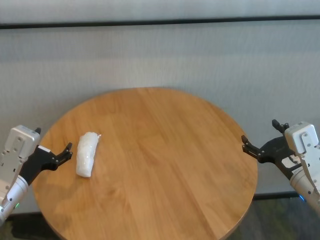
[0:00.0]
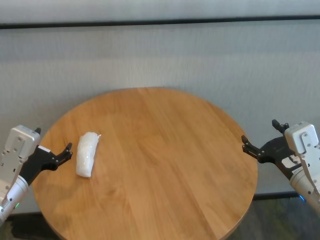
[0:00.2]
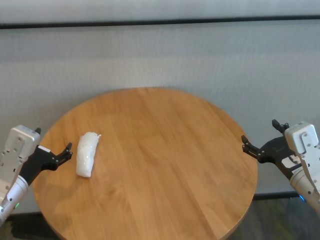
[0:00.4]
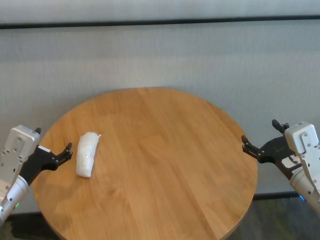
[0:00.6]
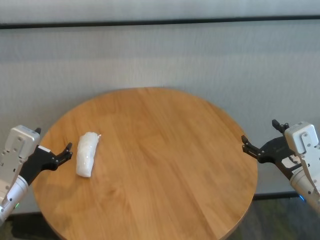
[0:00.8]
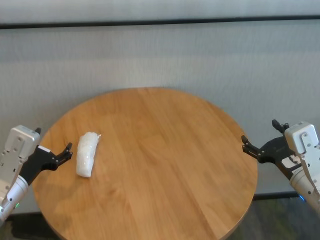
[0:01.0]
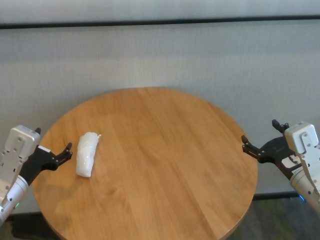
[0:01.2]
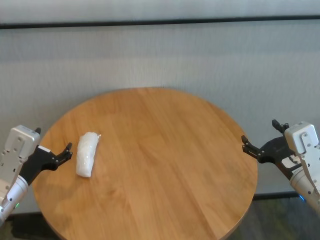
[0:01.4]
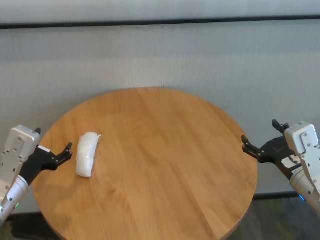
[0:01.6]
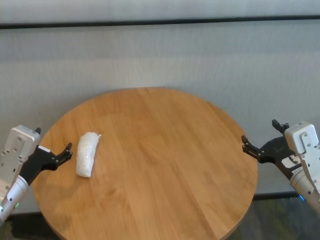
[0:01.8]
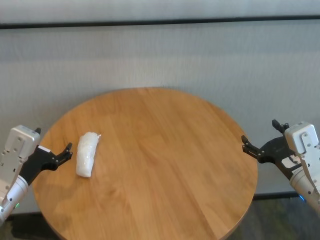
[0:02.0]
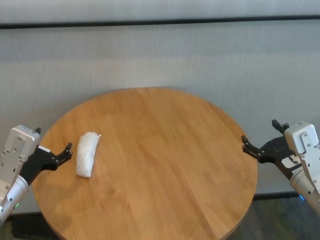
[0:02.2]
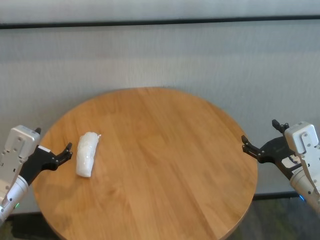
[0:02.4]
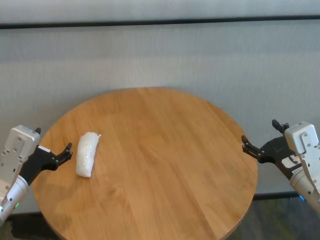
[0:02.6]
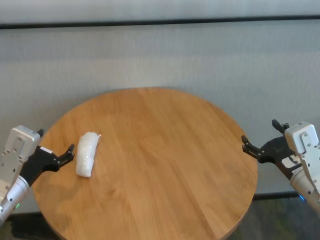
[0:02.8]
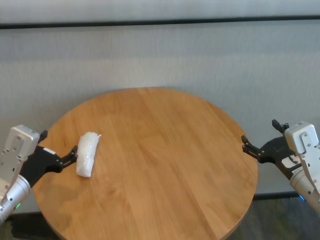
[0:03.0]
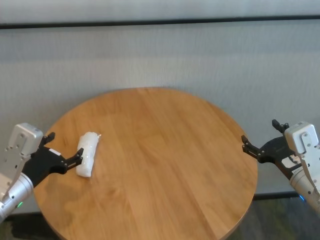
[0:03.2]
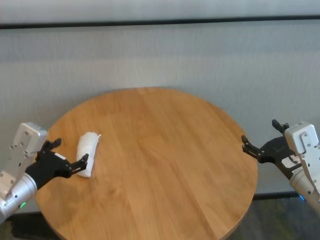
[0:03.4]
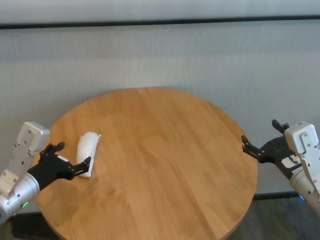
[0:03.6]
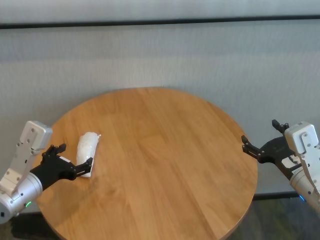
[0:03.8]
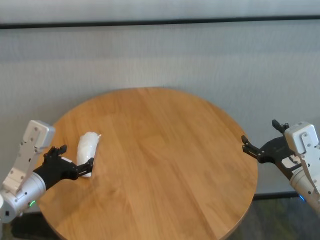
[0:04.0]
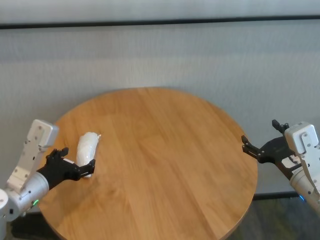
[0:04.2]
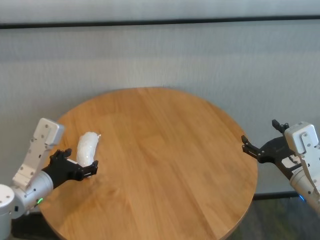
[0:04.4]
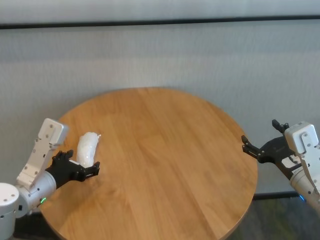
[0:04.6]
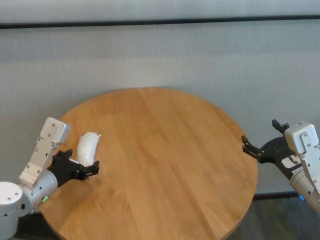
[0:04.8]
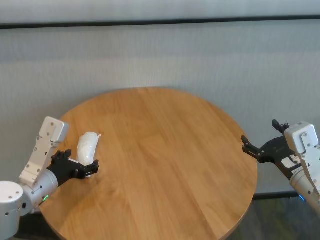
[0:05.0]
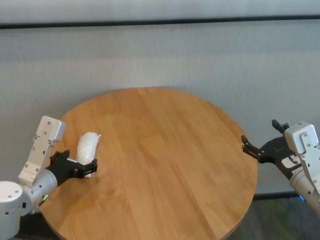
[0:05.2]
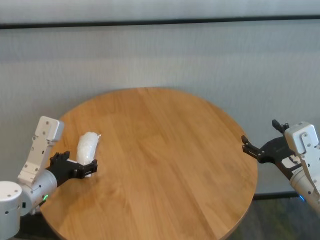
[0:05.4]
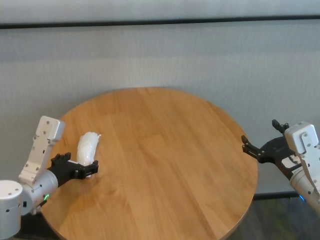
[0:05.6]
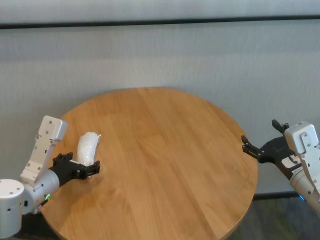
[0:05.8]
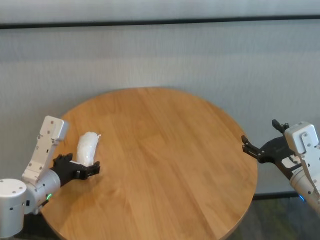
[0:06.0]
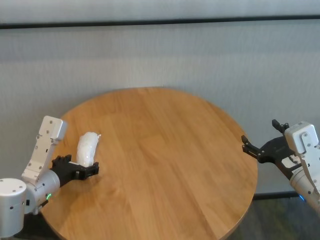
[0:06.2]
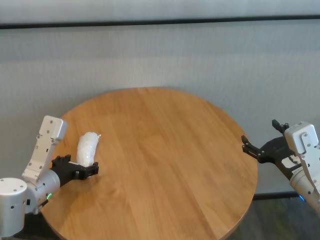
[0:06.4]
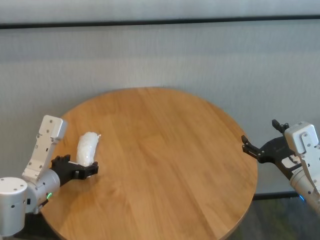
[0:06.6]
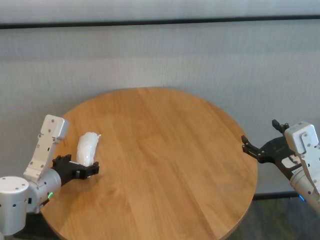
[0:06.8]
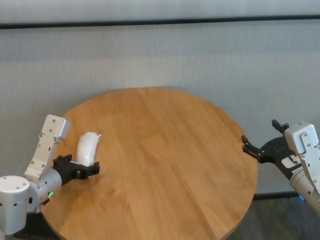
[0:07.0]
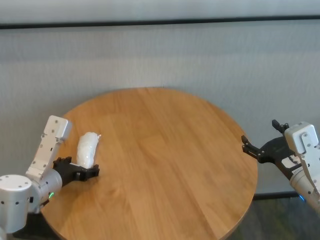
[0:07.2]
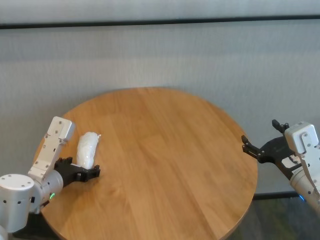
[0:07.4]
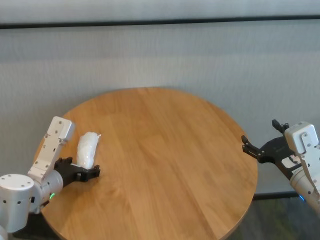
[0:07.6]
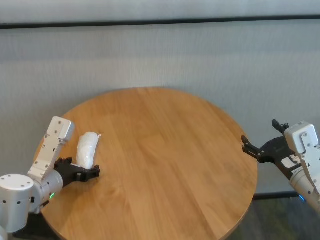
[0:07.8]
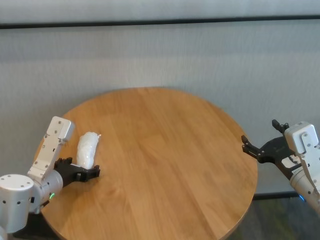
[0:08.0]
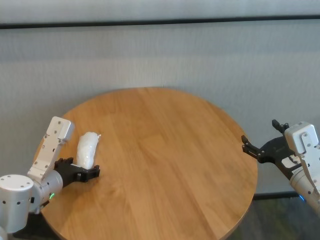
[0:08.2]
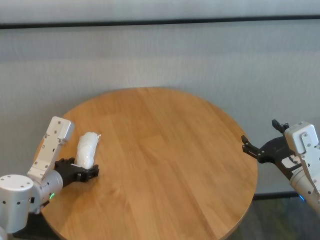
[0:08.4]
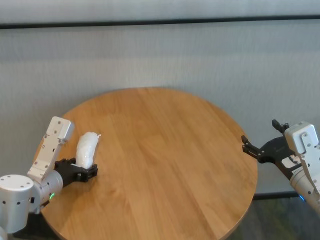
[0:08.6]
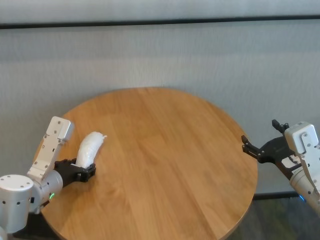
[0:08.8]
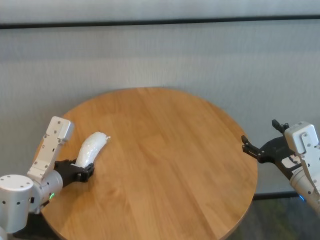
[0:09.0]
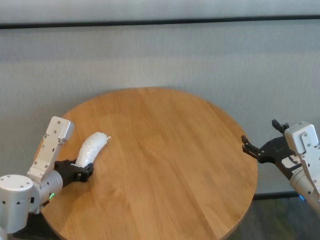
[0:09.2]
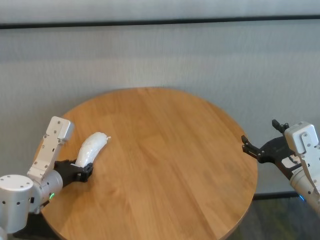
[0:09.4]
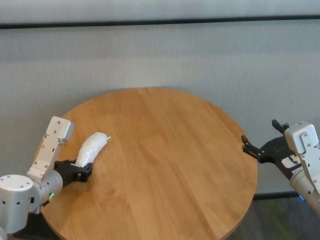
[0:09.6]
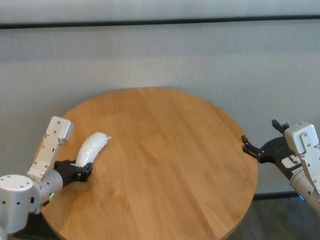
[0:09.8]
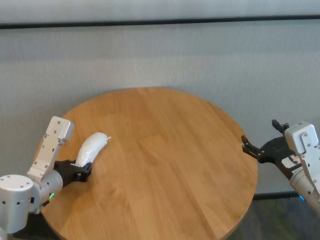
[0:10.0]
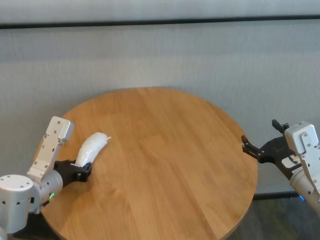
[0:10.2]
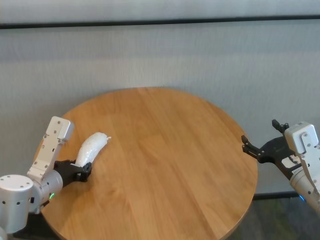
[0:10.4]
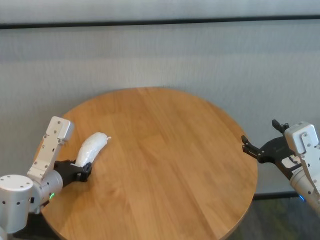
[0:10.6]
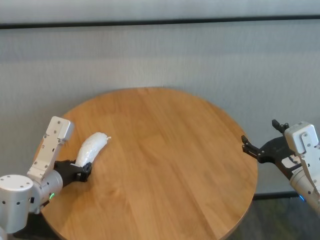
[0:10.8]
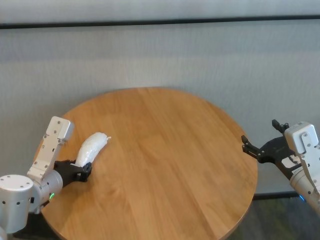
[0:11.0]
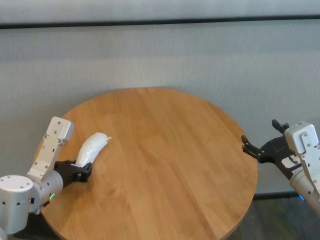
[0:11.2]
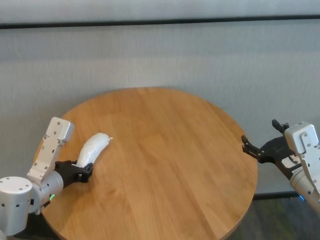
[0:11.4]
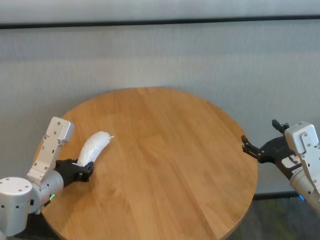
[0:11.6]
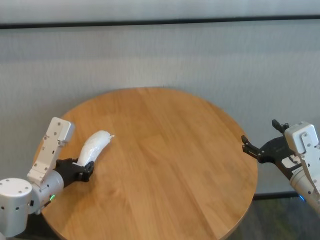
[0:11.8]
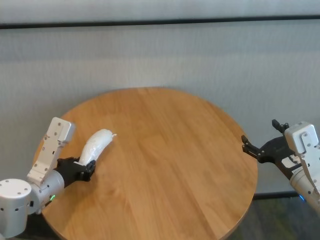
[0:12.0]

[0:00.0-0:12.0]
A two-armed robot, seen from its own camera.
Task of the whole recording: One hand took the sandbag from the other hand and placed it on the table.
Step, 0:00.0 to 0:10.0: Grasp the paper ball with left gripper.

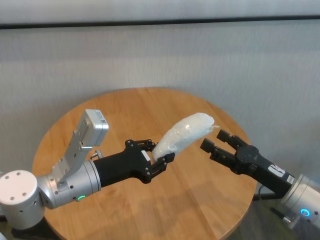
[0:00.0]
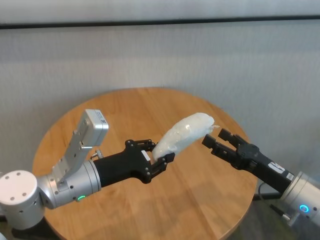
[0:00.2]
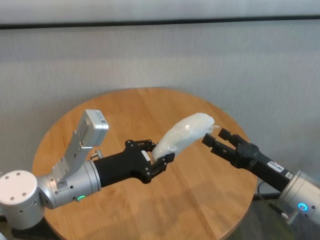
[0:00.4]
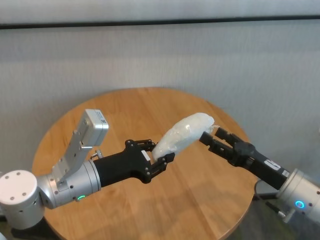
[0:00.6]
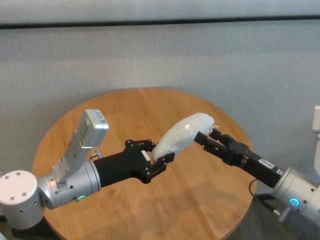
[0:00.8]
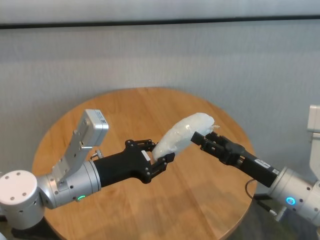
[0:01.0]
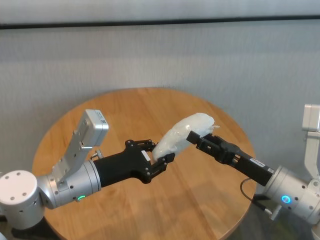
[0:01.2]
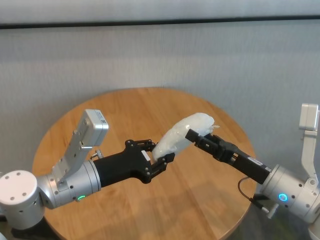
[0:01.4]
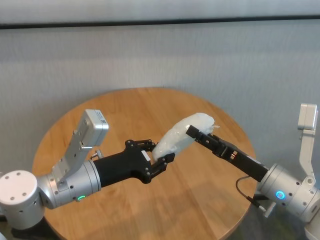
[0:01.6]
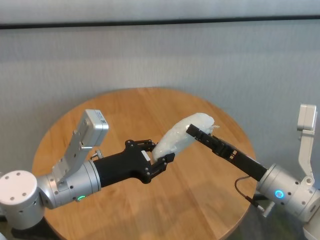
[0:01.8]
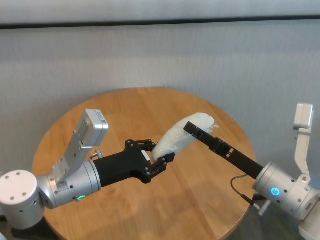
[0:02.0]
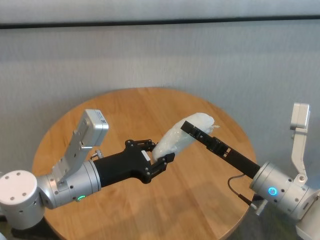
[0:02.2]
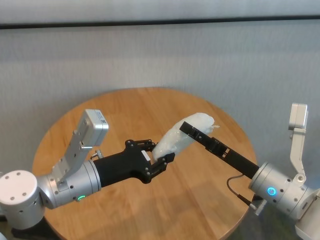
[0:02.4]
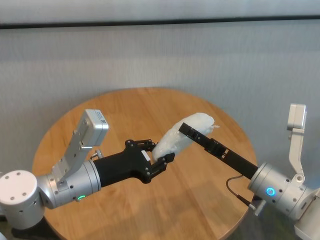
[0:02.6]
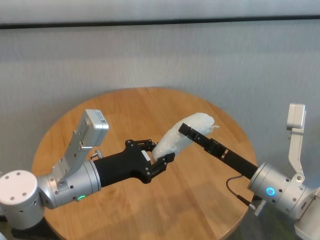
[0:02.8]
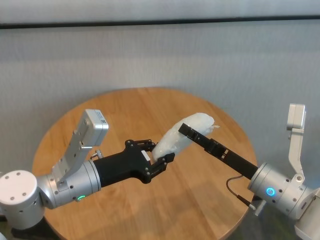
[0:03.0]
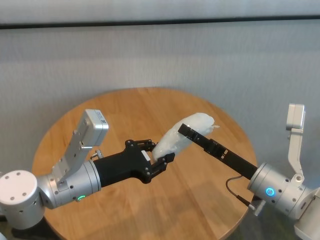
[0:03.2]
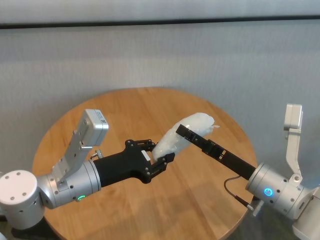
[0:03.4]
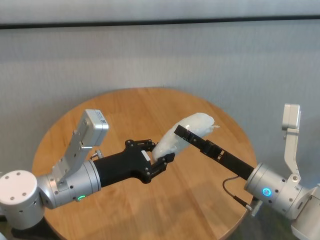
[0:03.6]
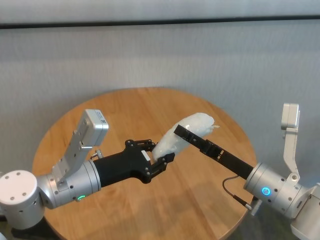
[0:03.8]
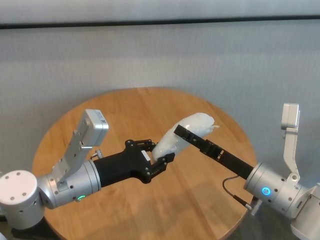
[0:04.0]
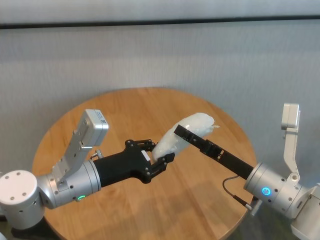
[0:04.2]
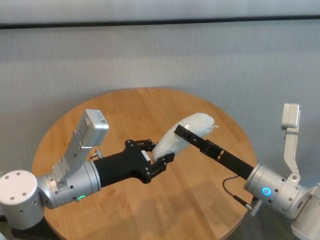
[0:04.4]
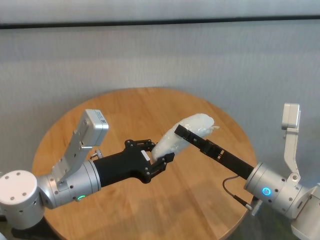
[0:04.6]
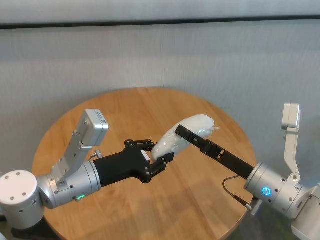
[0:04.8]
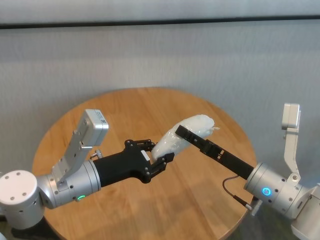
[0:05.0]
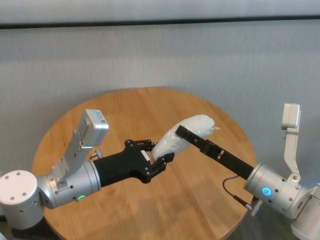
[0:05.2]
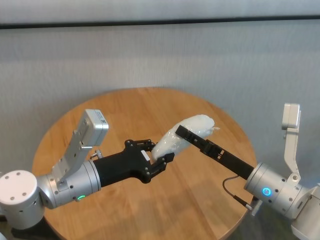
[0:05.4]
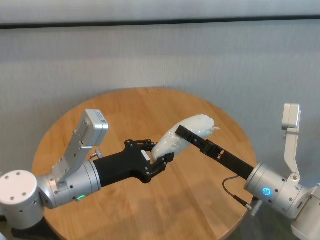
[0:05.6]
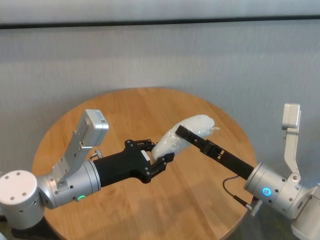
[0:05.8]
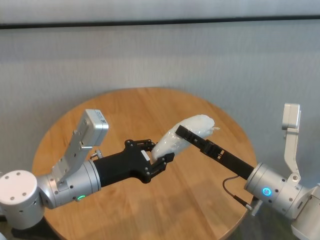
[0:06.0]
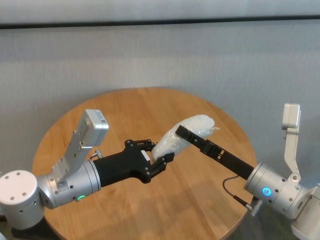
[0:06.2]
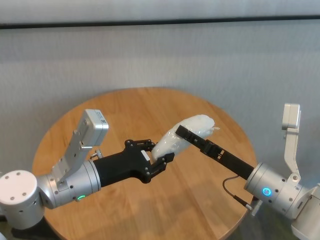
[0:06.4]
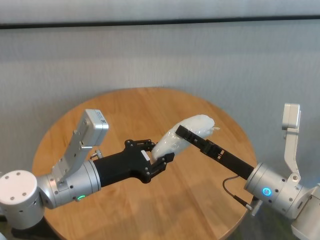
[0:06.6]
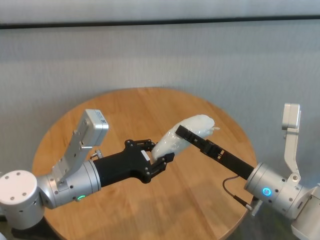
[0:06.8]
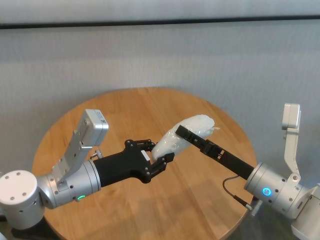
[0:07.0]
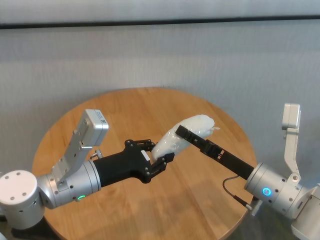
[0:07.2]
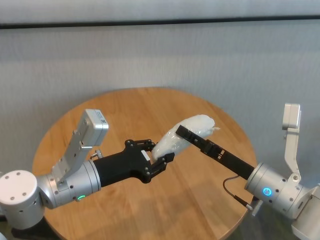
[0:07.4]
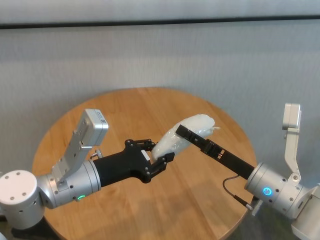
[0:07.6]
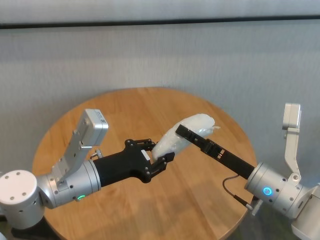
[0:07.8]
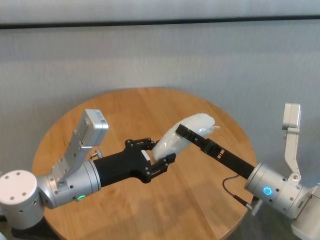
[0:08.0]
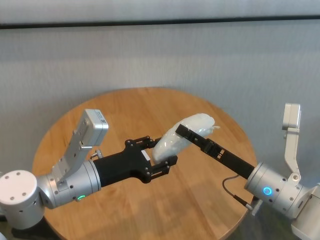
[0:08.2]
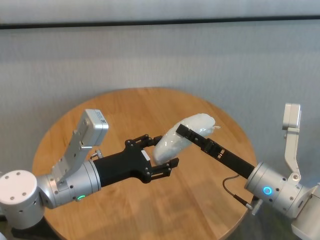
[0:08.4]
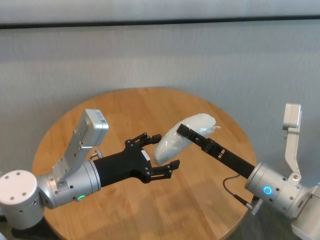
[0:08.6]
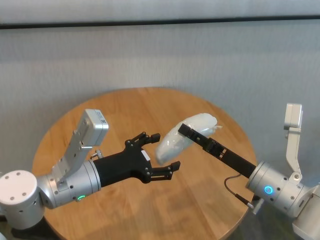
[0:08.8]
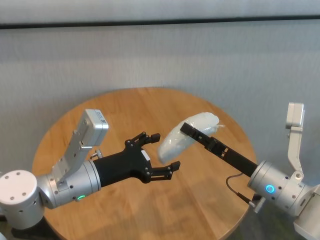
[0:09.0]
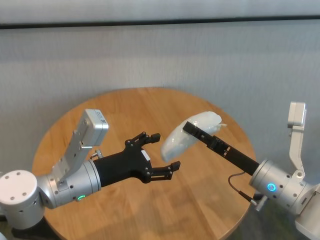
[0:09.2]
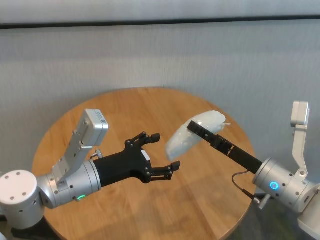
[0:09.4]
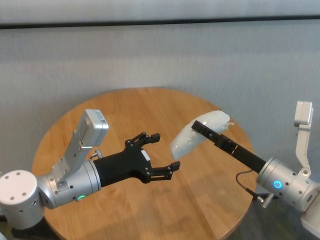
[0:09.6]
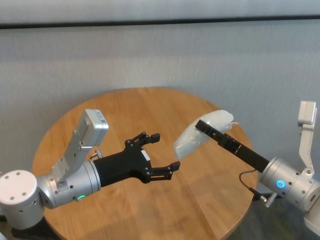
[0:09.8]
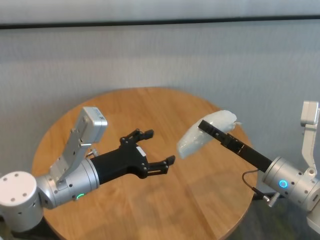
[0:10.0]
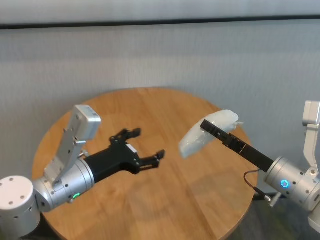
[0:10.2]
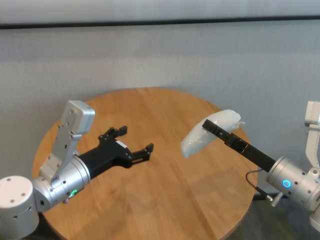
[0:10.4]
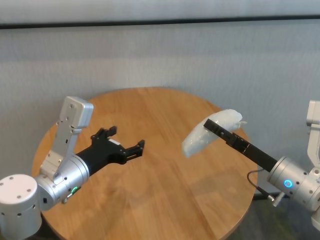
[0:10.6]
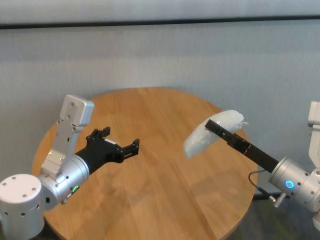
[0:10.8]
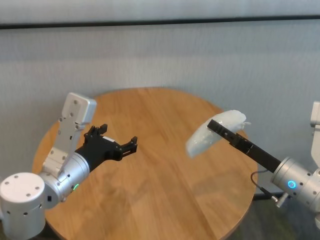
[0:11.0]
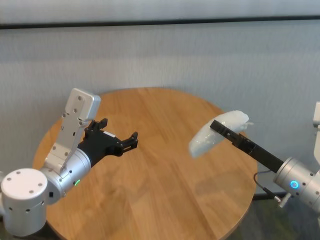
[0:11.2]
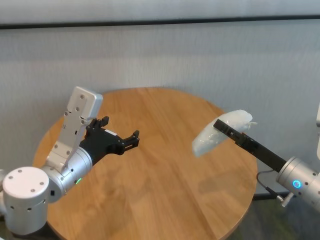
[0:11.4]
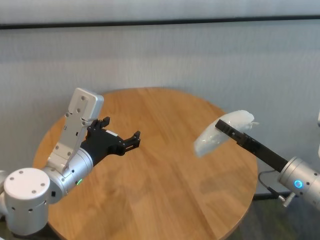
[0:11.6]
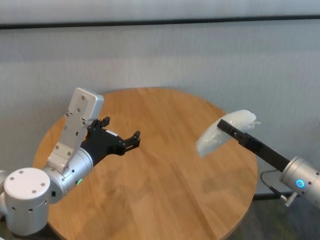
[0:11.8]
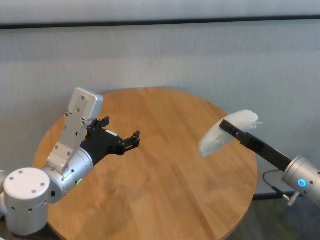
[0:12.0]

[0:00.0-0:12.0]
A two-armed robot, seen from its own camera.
Task of the whole recording: One hand took the sandbag from the other hand and placed it on the table.
Step, 0:00.0 to 0:09.6: Pass the paper ball to the right gripper.
